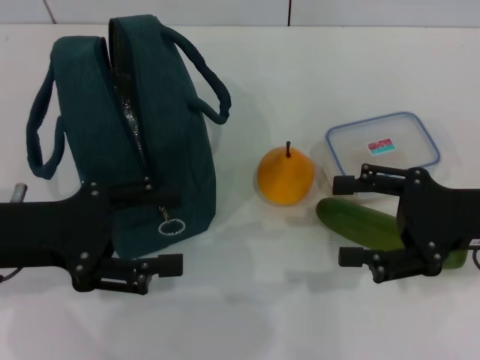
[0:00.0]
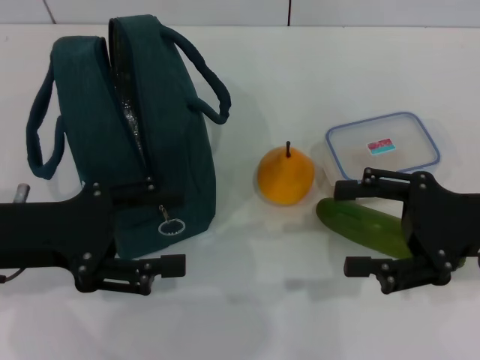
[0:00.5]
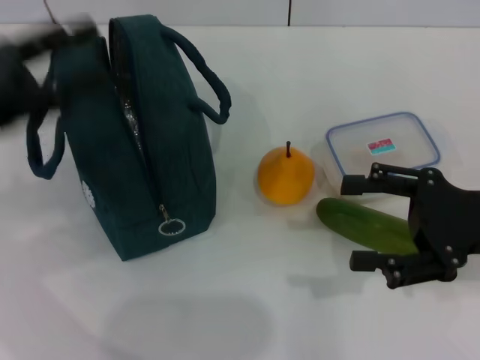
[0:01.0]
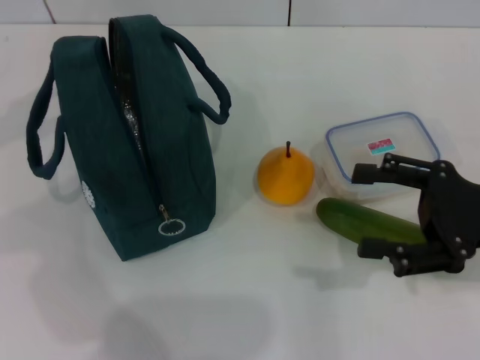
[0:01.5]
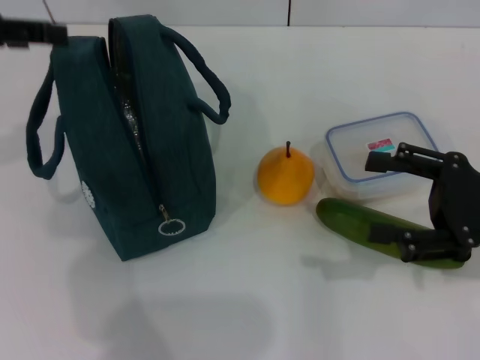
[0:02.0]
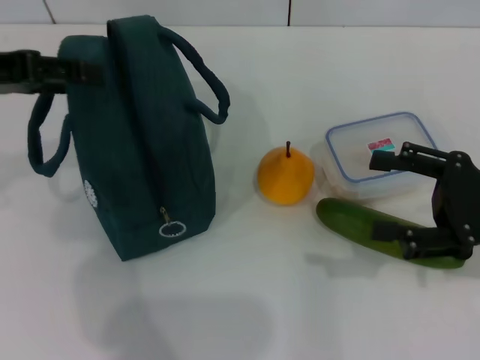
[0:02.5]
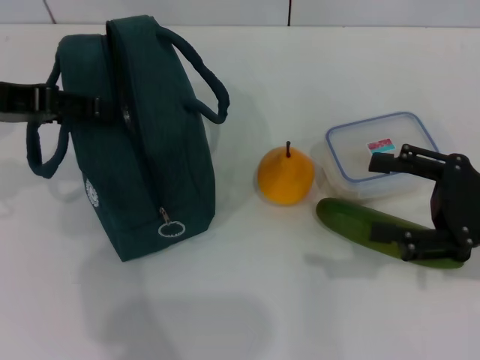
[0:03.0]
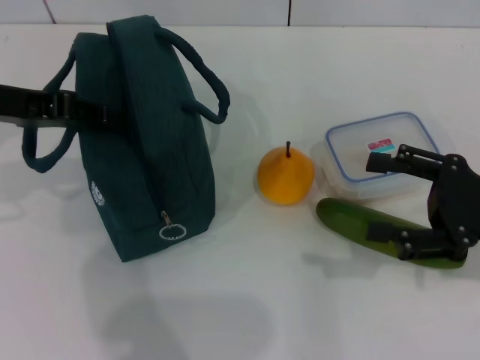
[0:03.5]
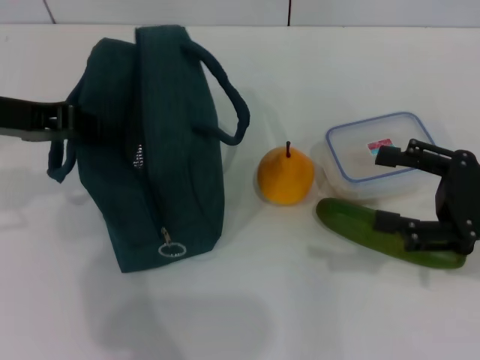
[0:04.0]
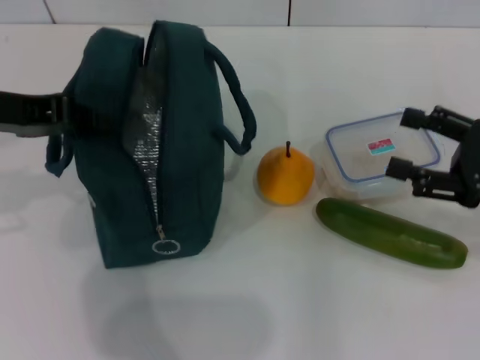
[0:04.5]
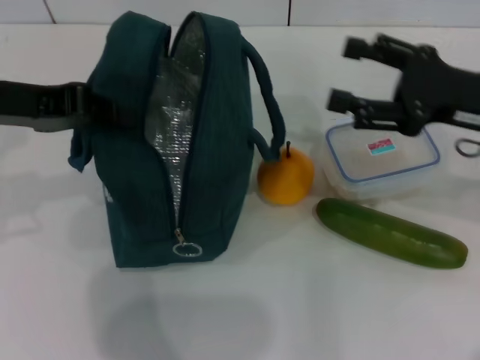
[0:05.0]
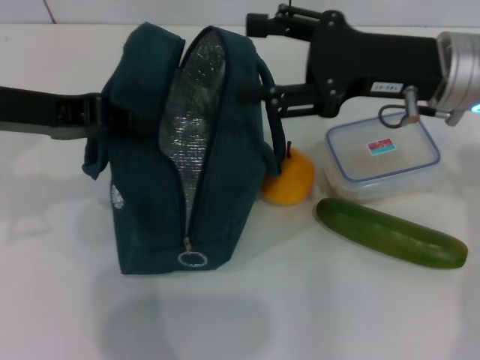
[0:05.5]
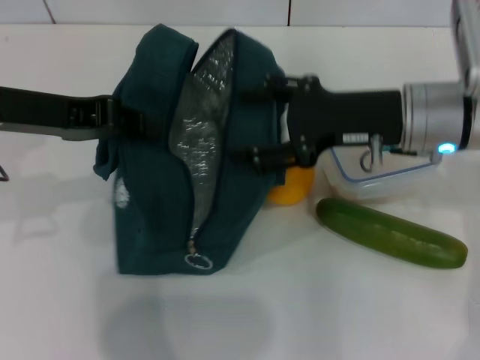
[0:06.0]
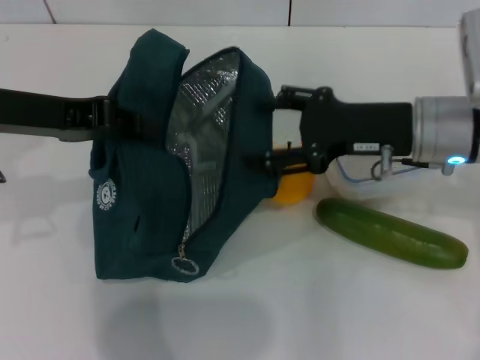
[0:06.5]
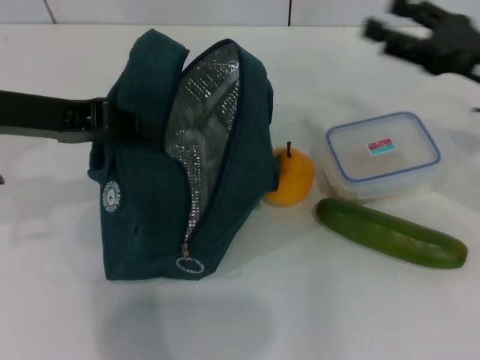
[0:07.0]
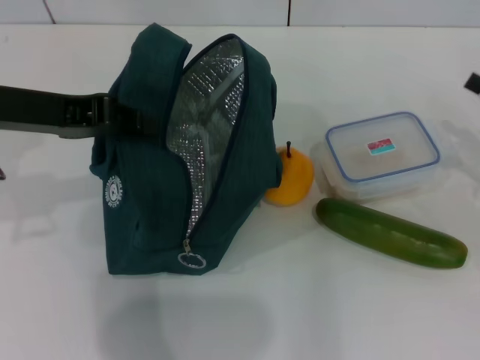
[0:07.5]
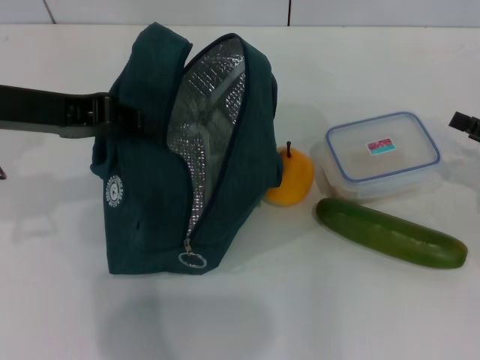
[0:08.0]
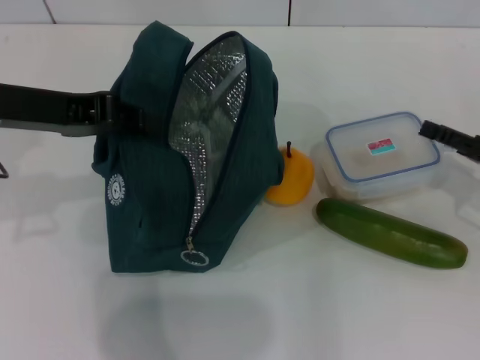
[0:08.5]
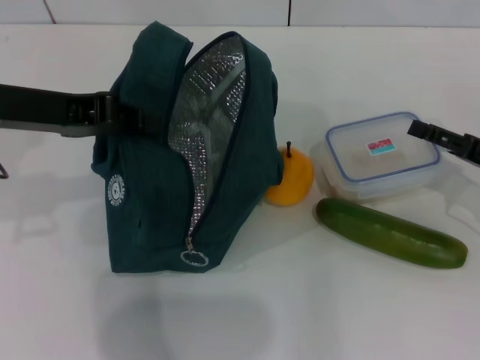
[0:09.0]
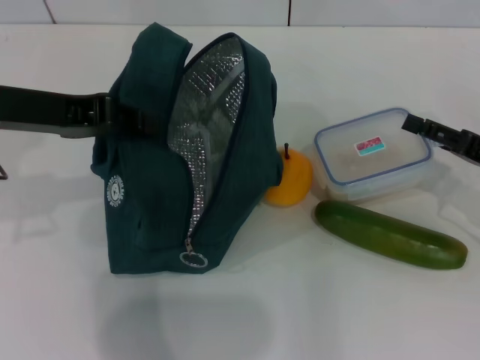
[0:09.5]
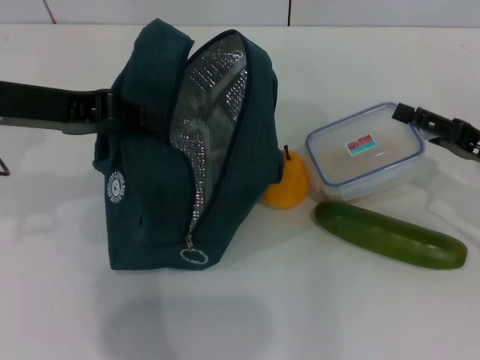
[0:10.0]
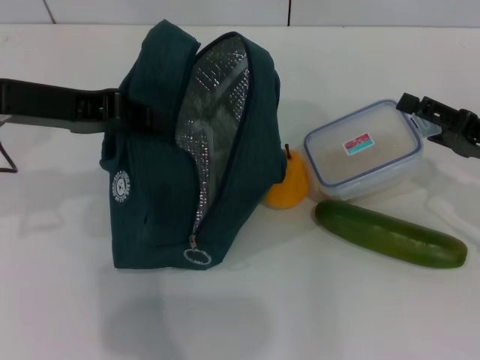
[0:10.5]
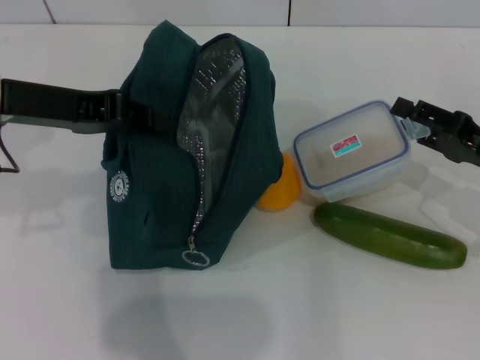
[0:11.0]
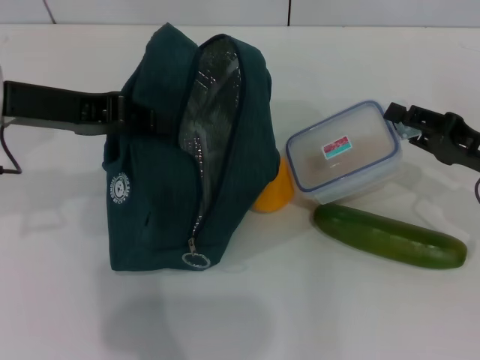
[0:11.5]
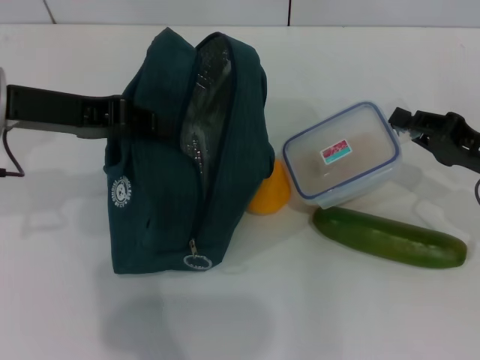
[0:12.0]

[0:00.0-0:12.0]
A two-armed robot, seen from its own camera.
Step, 0:00.0 to 0:03.5: Hold the lunch bag with your left hand.
0:00.0 to 0:02.0: The left gripper is displaced upward and forward by about 15 cm.
0:02.0 to 0:04.0: The left gripper heads downward, covering some 5 cm, and closes its fingers.
0:04.0 to 0:06.0: The right gripper moves to the left and forward, some 15 cm.
0:06.0 to 0:08.0: The right gripper is displaced to the right and downward by approximately 20 cm.
0:08.0 to 0:10.0: The right gripper shifts roughly 5 cm to the left.
0:10.0 to 0:12.0: The right gripper closes up.

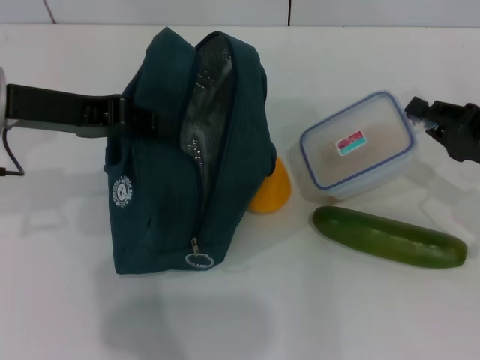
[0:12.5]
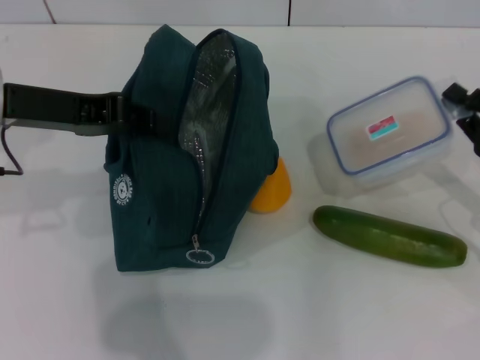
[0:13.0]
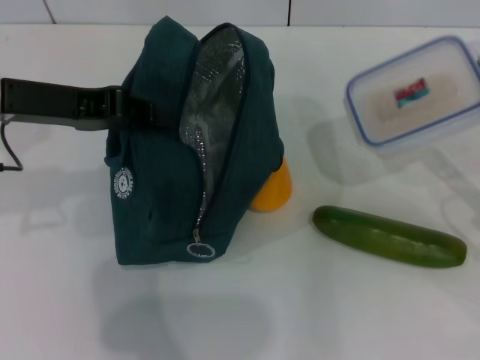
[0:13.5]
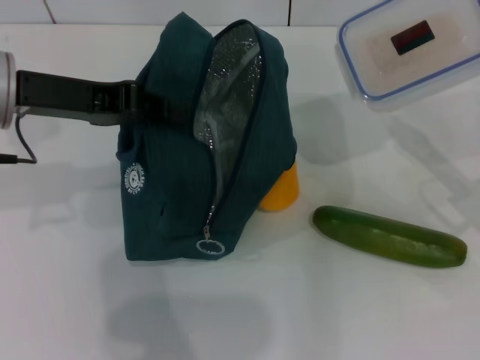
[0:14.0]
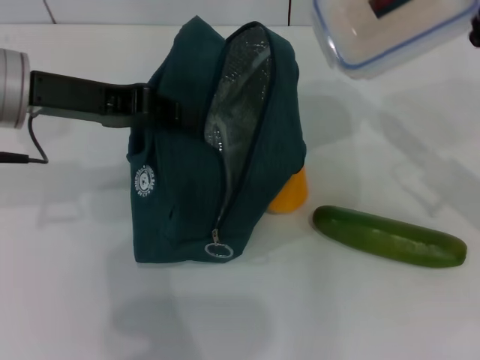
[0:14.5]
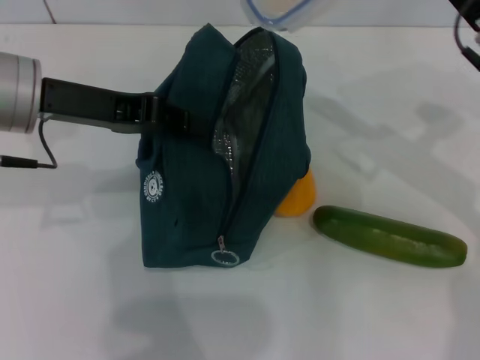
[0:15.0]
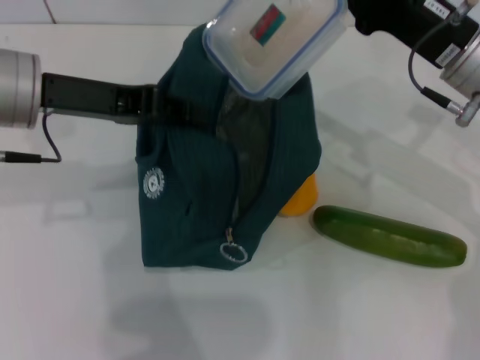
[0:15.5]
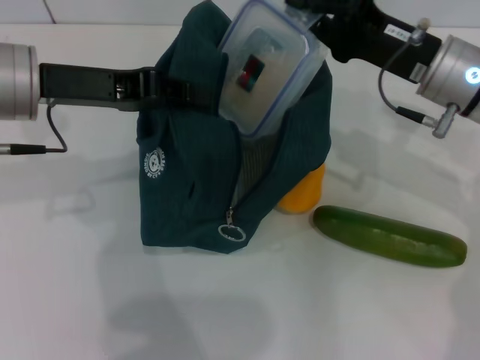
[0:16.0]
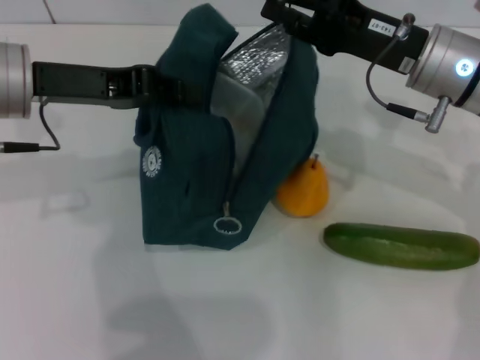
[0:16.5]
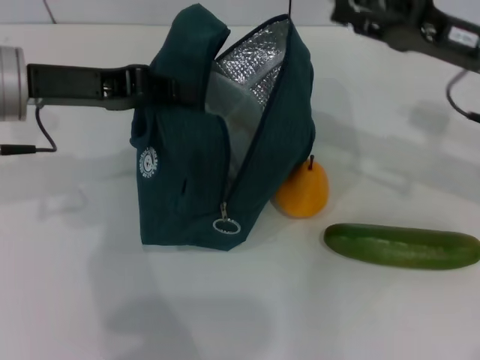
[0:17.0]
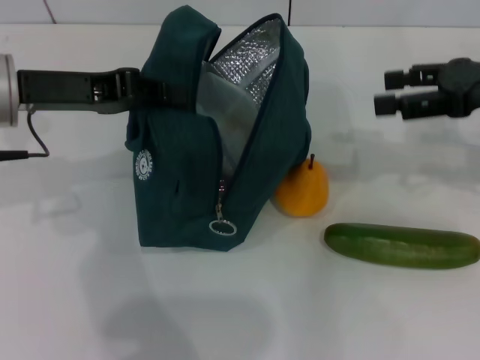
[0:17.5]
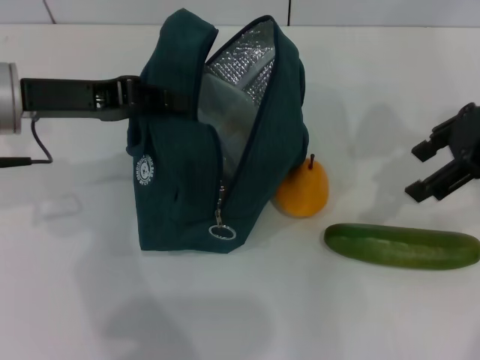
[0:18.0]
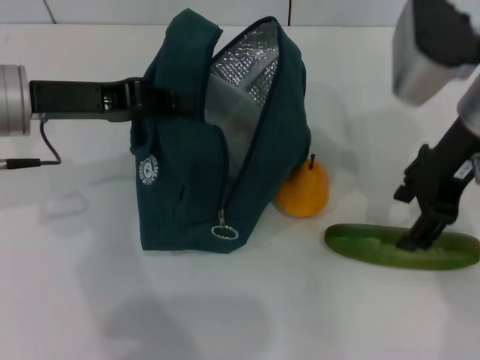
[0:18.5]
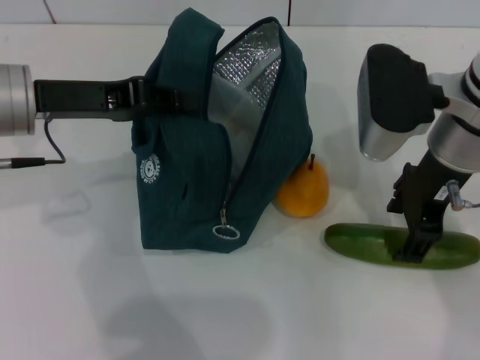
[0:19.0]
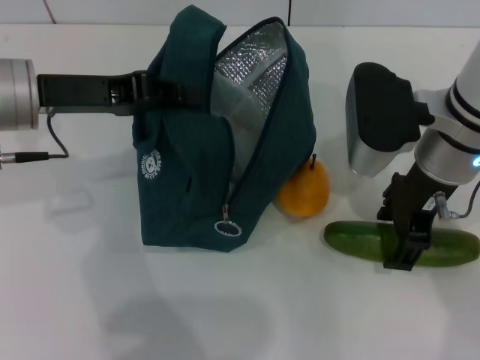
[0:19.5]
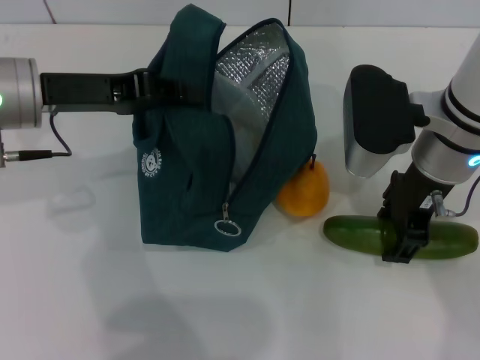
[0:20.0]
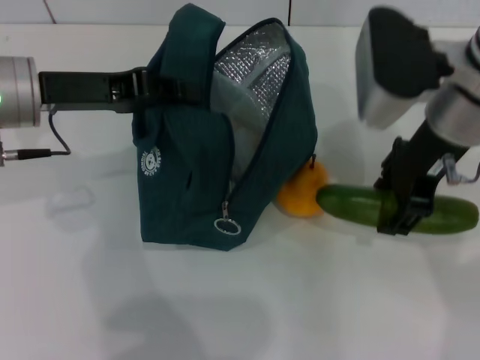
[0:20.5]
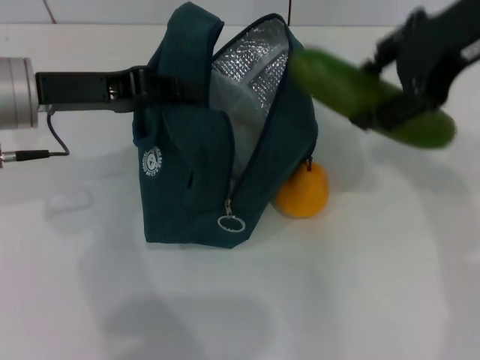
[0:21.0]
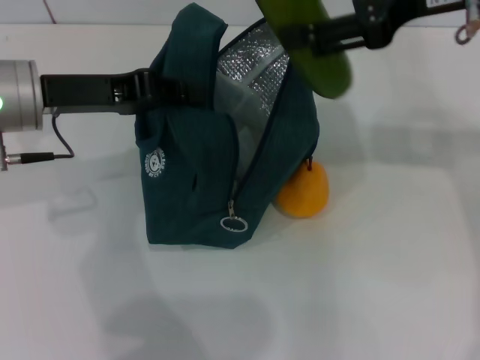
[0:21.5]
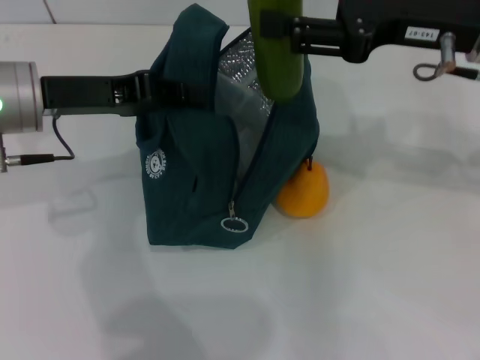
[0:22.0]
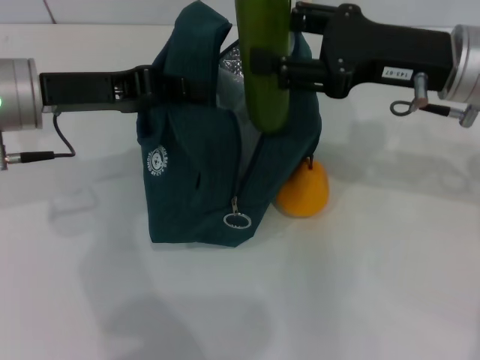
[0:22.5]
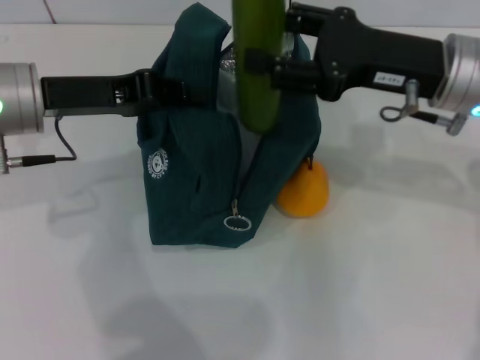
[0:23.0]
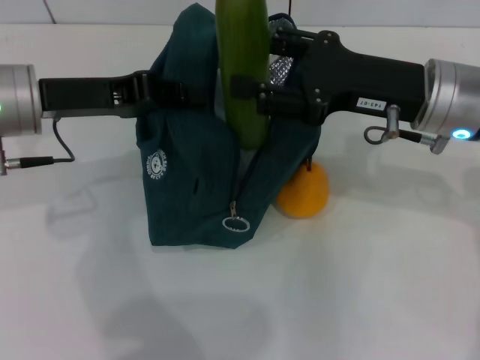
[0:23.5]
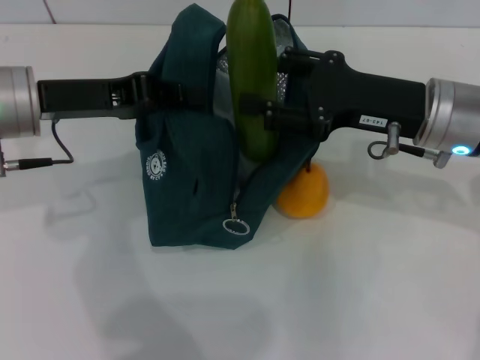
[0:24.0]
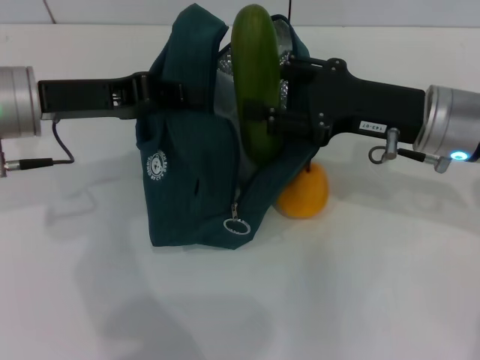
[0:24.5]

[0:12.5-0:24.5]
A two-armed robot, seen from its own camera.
Step, 0:12.5 to 0:16.0: Place the lunch box into the lunch bag with your right hand.
Step, 0:16.5 to 0:19.5: Pick up the cucumber with your right hand.
0:12.5 to 0:14.5: The right gripper shifts some 5 cm upward.
0:14.5 to 0:16.5: The right gripper heads to the left, covering some 10 cm.
0:16.5 to 0:18.5: The right gripper is displaced upward by approximately 5 cm, goes to the right and returns, roughly 10 cm each way, and opens its fingers.
0:20.5 to 0:22.5: The right gripper moves some 10 cm upward and comes back.
0:22.5 to 0:24.5: The right gripper heads downward, covering some 5 cm.

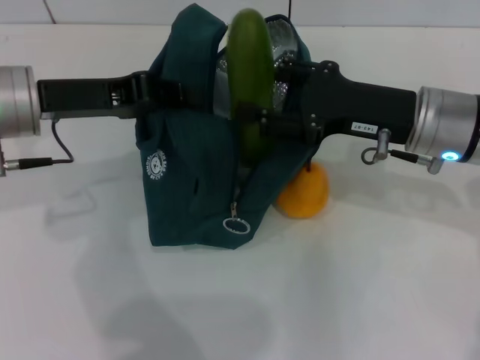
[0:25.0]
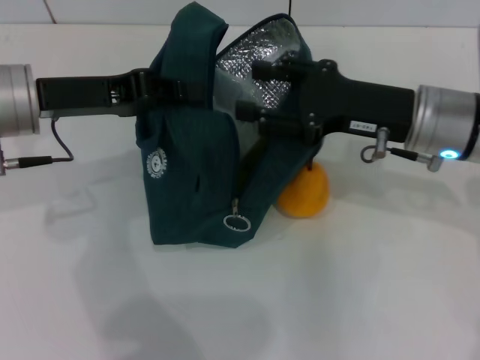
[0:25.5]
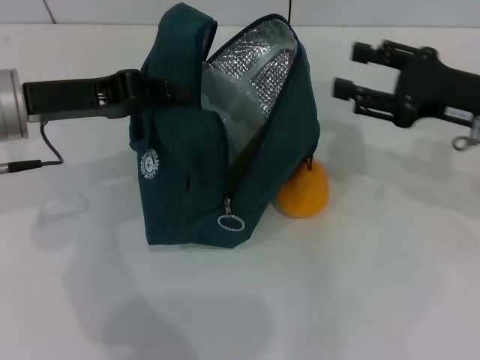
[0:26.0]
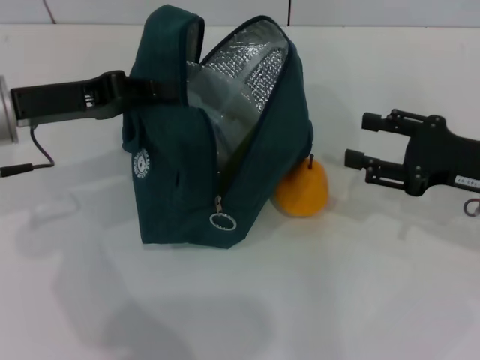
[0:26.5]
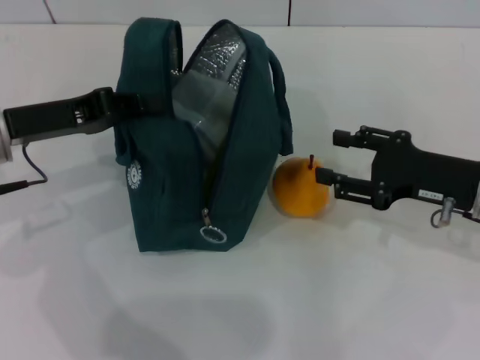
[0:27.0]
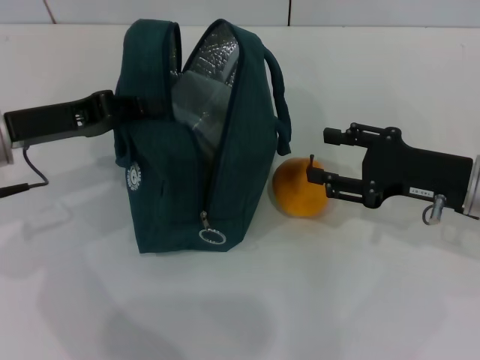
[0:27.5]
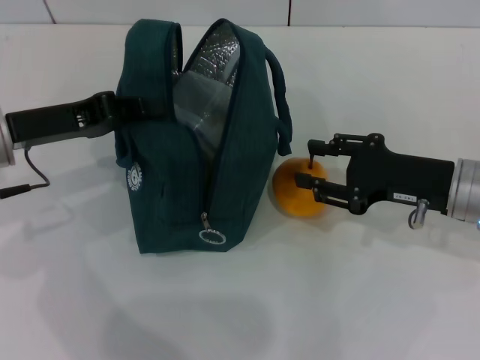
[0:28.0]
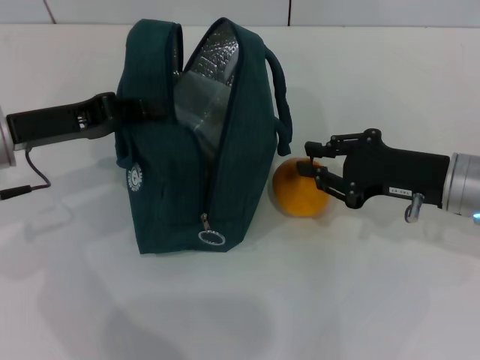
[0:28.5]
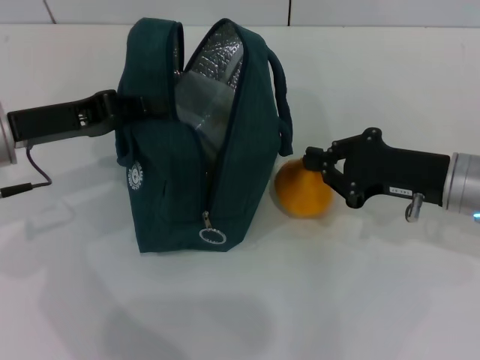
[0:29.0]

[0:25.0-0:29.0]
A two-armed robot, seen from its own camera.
Step, 0:25.5 to 0:28.5: Grab the pear with your right hand.
0:25.0 to 0:27.0: The right gripper heads to the right and downward, covering about 10 cm.
0:27.0 to 0:29.0: The right gripper closes.
